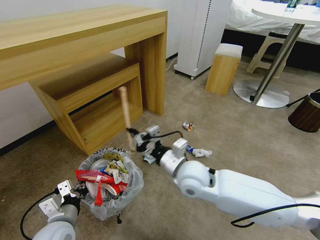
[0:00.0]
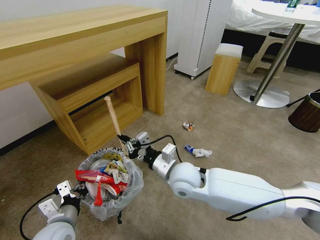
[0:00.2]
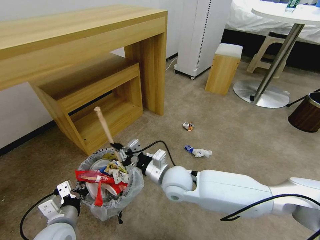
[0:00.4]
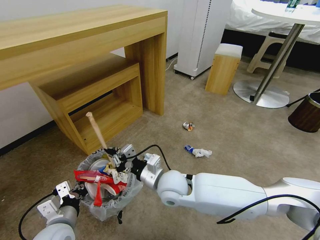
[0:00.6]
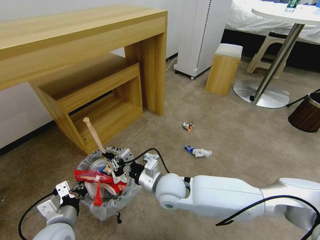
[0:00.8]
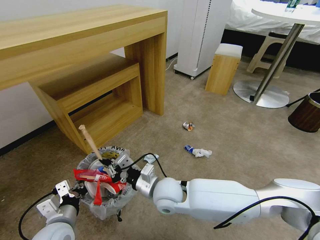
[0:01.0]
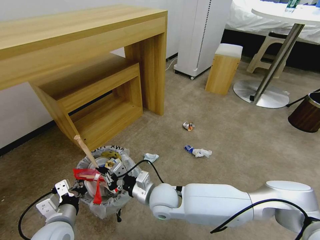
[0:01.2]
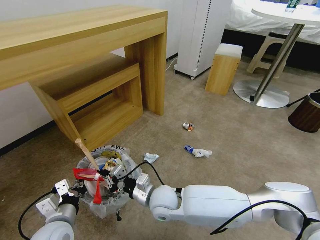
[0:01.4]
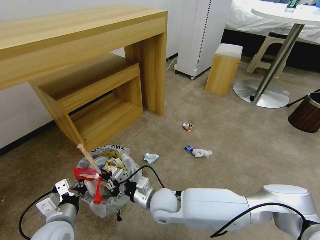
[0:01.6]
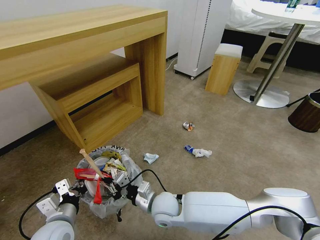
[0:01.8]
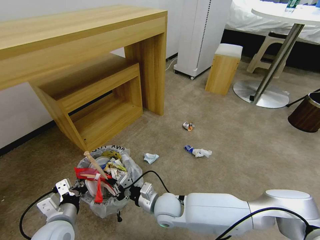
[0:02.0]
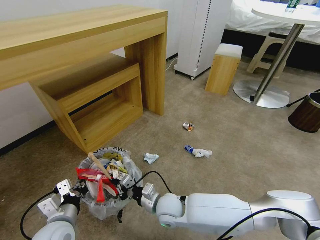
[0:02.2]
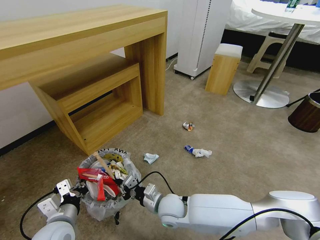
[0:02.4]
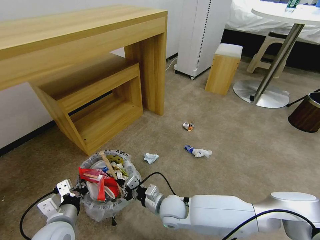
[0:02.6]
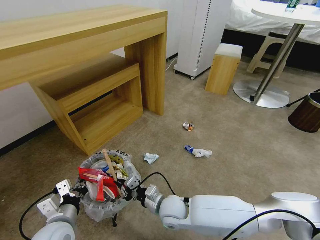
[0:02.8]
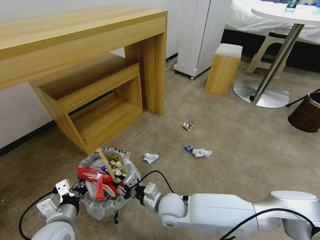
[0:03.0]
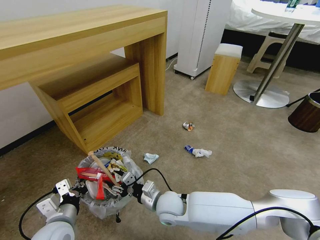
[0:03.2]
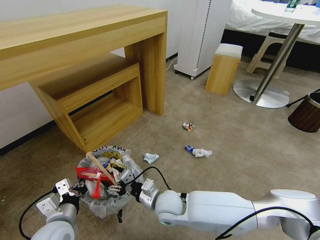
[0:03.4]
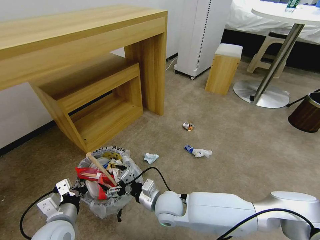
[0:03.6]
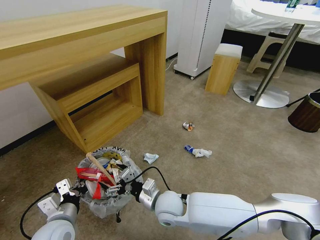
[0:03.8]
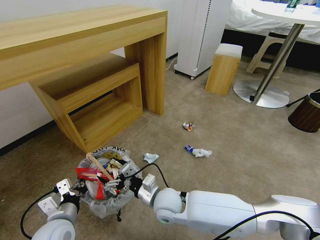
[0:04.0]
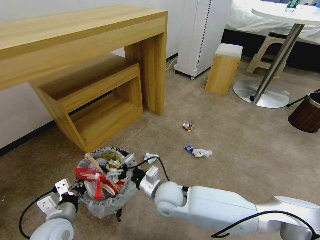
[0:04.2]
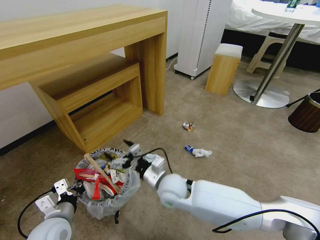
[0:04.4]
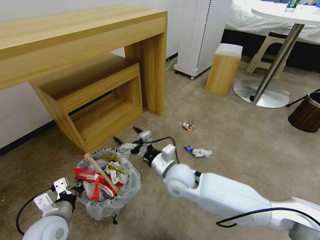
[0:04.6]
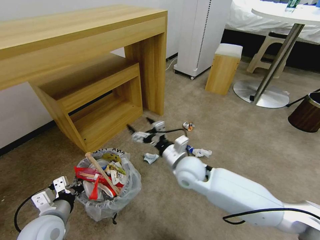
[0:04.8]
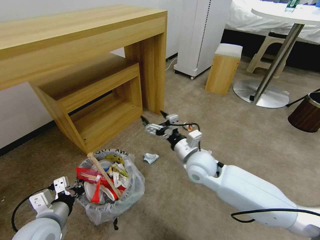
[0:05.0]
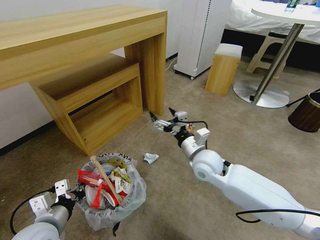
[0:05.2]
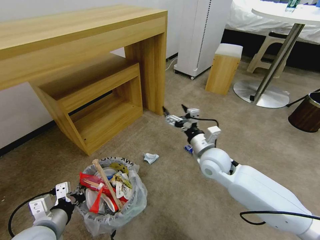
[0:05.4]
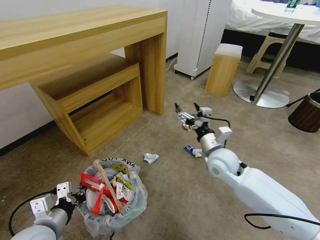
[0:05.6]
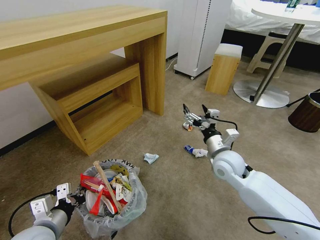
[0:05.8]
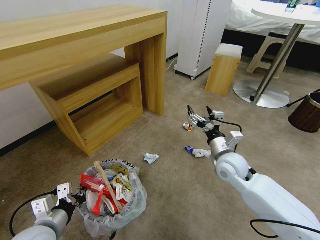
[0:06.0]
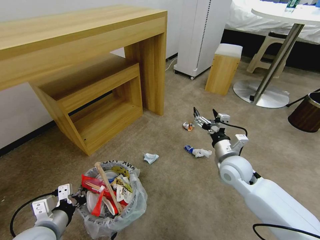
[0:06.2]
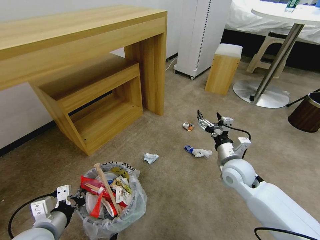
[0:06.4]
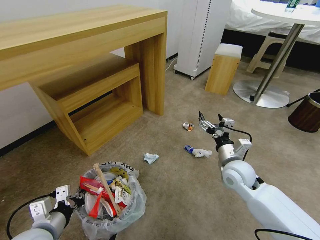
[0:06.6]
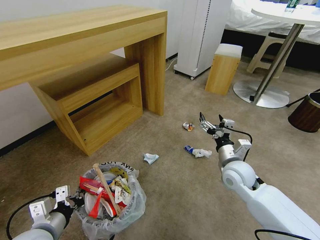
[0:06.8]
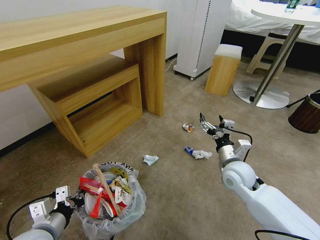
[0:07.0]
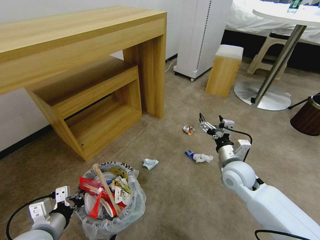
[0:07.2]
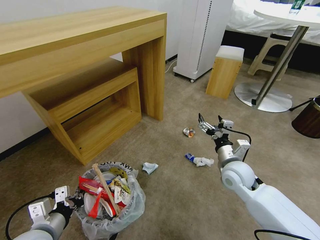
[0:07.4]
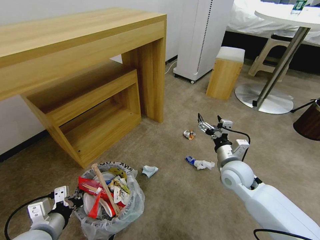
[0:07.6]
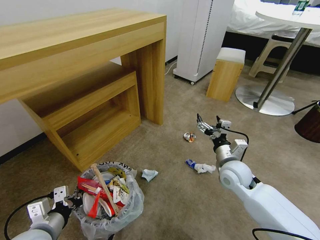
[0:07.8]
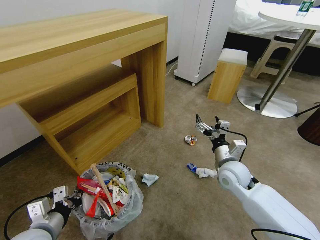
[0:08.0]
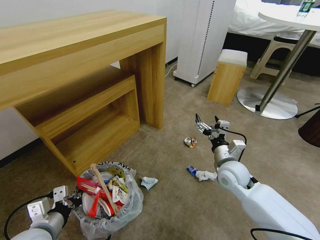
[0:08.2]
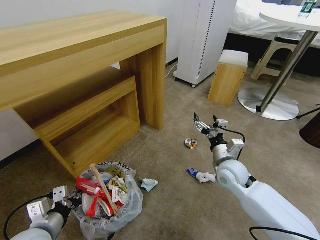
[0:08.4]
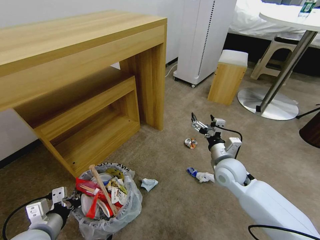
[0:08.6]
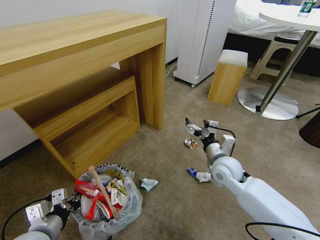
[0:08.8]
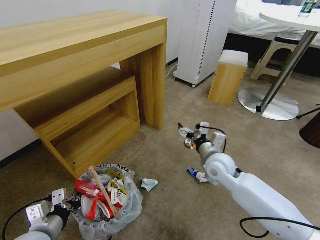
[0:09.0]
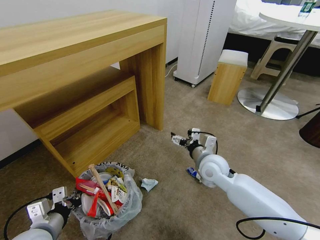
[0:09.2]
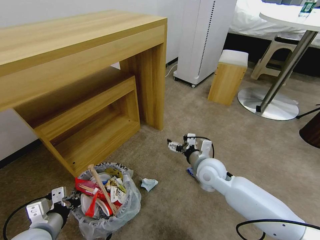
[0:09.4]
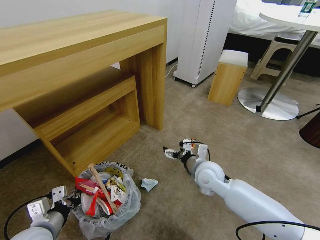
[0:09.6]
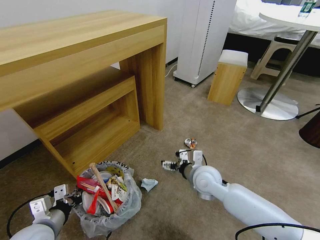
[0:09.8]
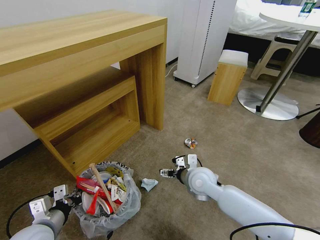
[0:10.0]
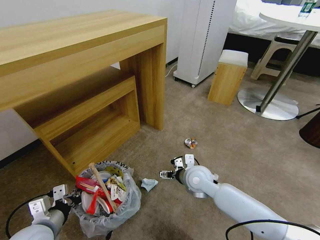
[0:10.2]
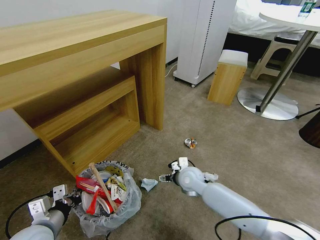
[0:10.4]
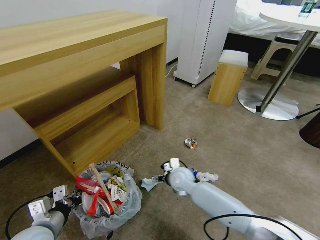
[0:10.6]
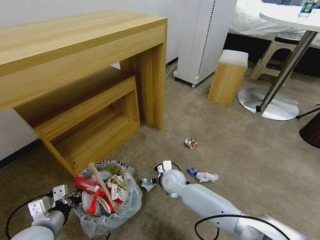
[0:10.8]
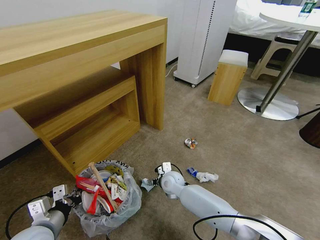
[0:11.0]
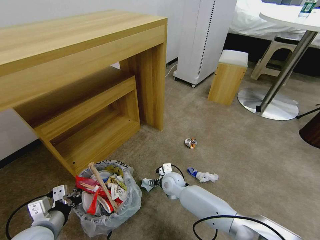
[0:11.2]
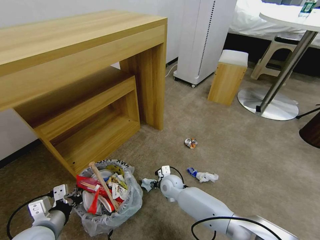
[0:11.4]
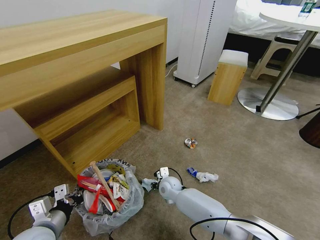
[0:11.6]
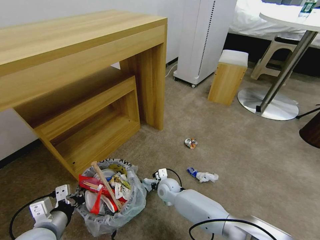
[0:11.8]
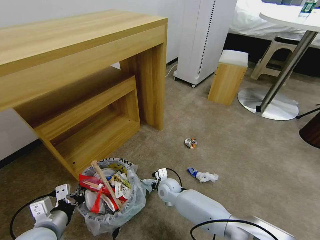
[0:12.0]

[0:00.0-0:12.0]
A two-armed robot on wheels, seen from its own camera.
Task of the whole recording: Pick up the trash bin and place the garbage on the floor into it.
0:00.0 to 0:01.6: The right gripper goes some 15 cm downward and to the left.
0:01.6 to 0:03.0: The grippers make only small movements.
0:03.0 to 0:04.4: The right gripper goes approximately 5 cm upward, and opens its fingers.
0:04.4 to 0:06.0: The right gripper heads to the right, covering about 20 cm.
0:07.6 to 0:09.0: The right gripper changes place by approximately 5 cm.
0:09.0 to 0:10.4: The right gripper heads downward and to the left, covering approximately 10 cm.
0:10.4 to 0:12.0: The right gripper moves downward and to the left, some 15 cm, and closes.

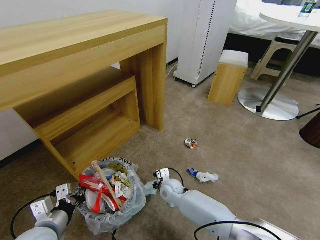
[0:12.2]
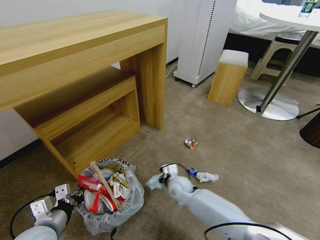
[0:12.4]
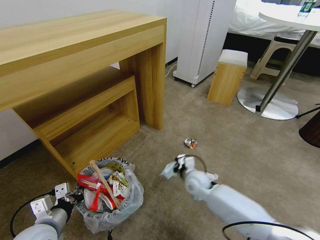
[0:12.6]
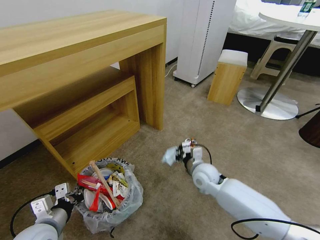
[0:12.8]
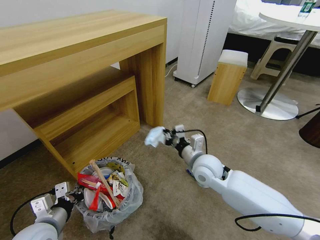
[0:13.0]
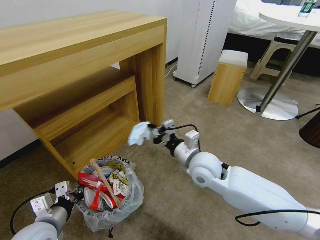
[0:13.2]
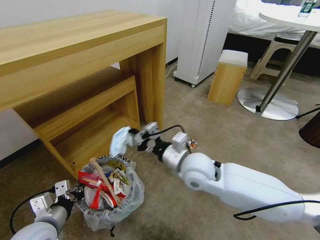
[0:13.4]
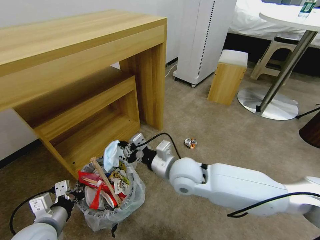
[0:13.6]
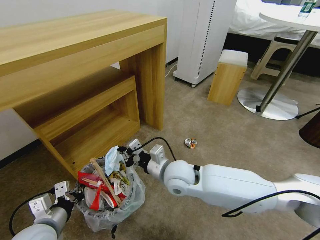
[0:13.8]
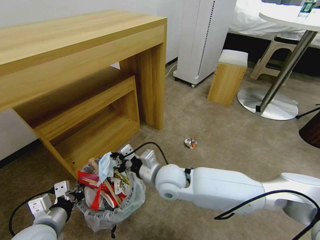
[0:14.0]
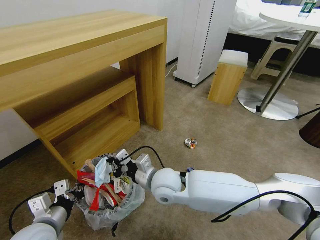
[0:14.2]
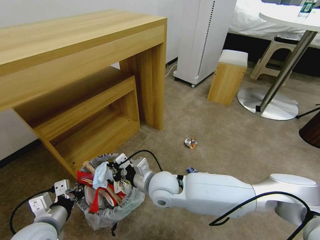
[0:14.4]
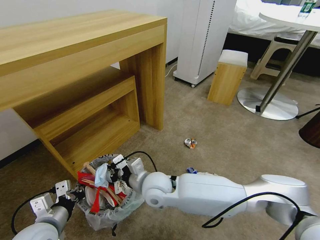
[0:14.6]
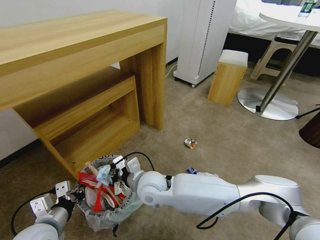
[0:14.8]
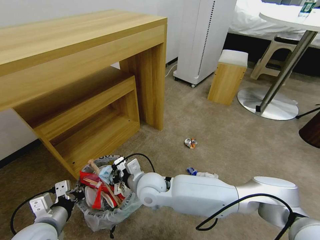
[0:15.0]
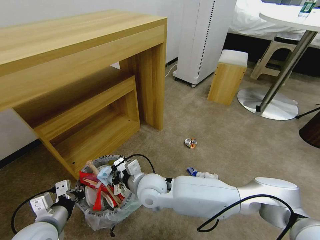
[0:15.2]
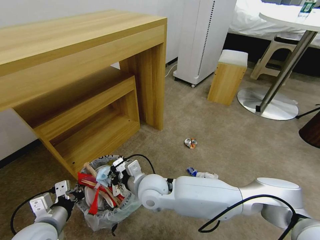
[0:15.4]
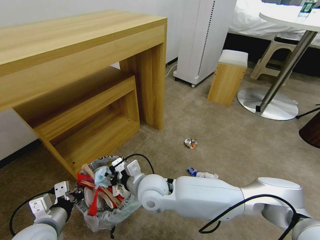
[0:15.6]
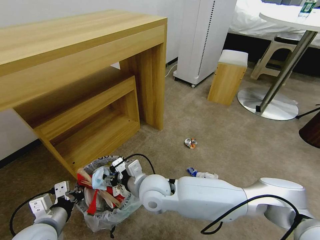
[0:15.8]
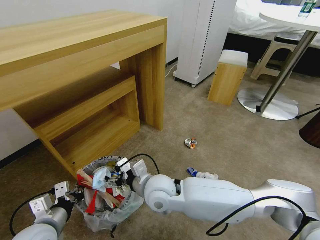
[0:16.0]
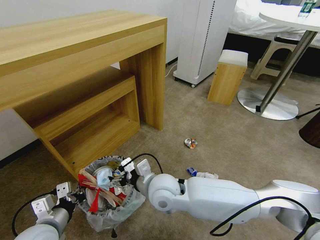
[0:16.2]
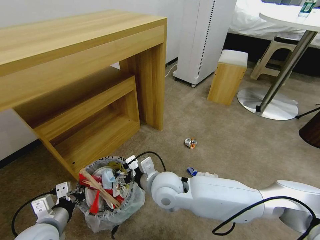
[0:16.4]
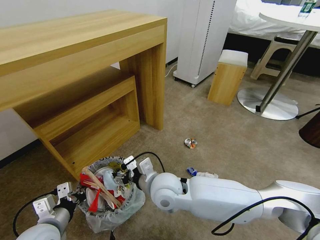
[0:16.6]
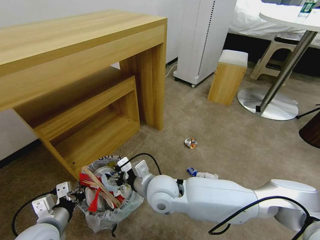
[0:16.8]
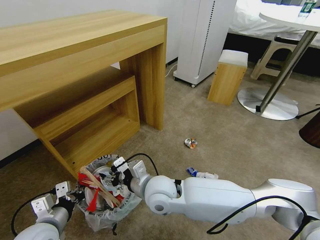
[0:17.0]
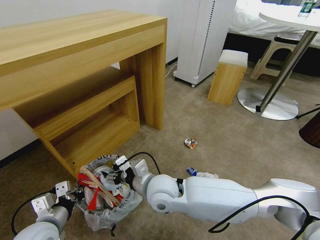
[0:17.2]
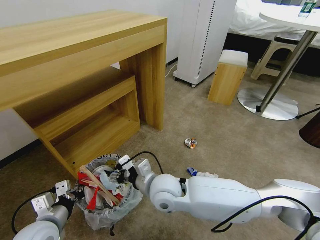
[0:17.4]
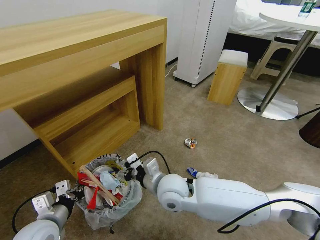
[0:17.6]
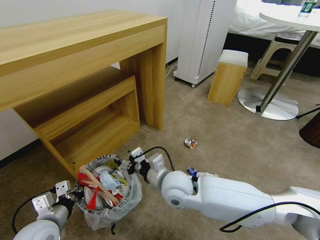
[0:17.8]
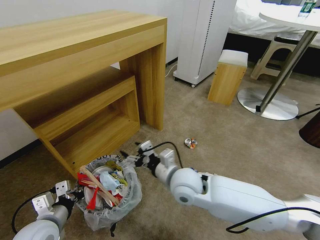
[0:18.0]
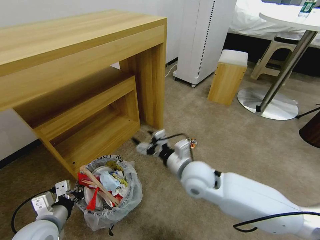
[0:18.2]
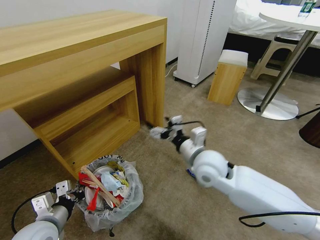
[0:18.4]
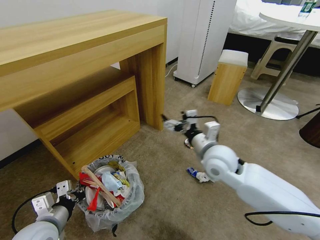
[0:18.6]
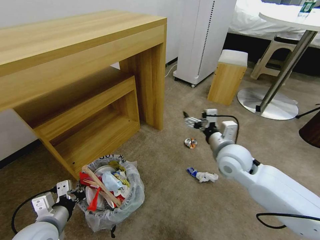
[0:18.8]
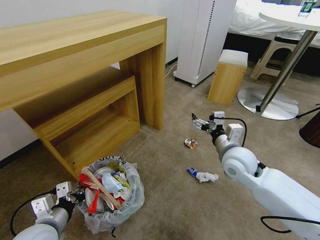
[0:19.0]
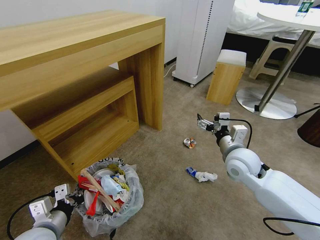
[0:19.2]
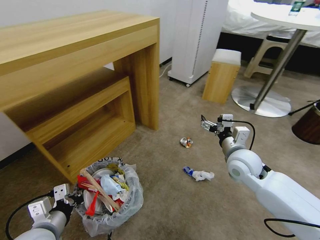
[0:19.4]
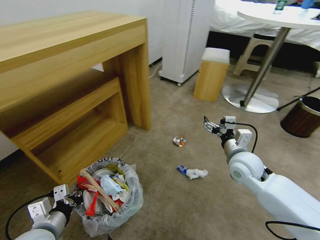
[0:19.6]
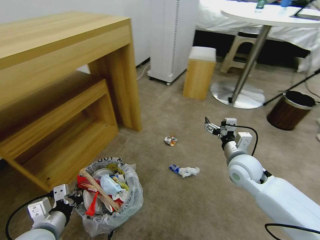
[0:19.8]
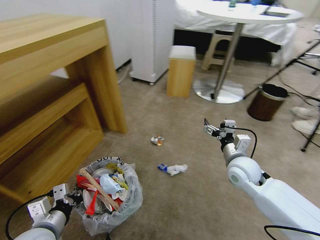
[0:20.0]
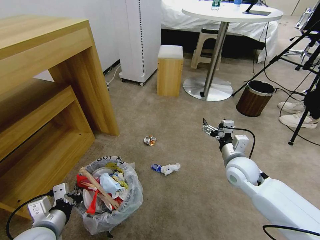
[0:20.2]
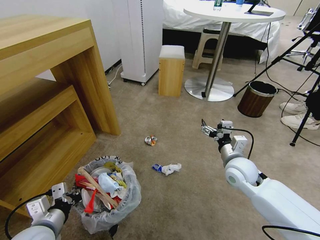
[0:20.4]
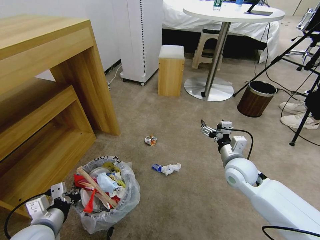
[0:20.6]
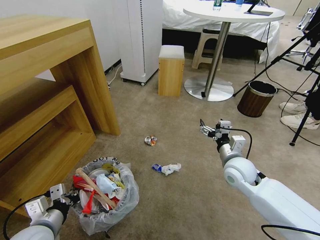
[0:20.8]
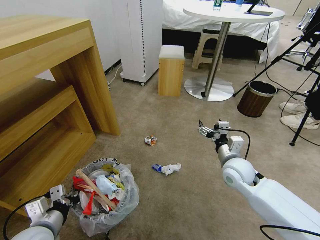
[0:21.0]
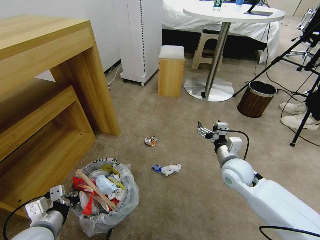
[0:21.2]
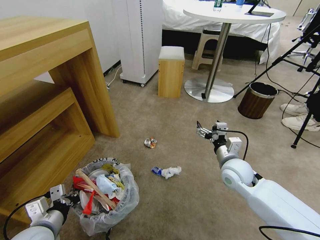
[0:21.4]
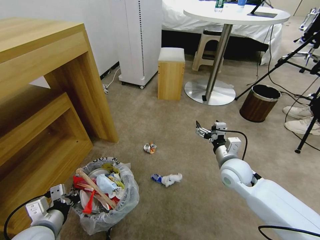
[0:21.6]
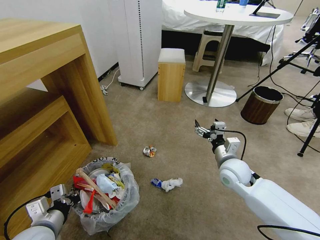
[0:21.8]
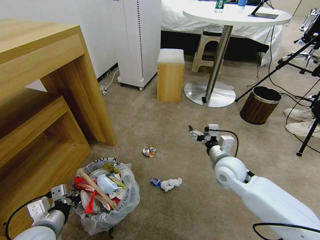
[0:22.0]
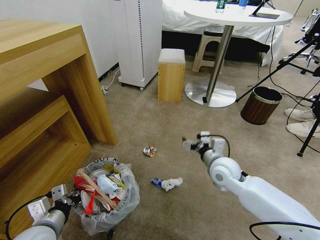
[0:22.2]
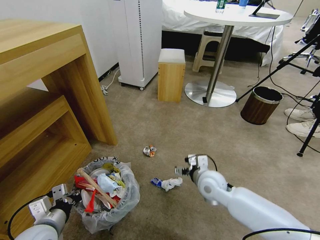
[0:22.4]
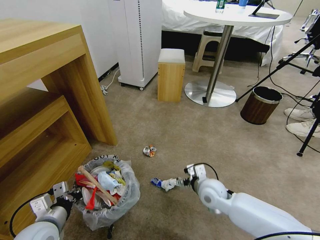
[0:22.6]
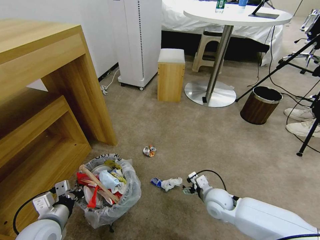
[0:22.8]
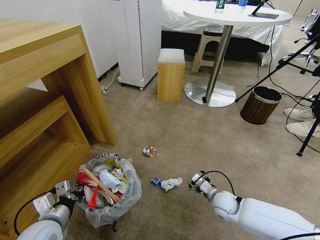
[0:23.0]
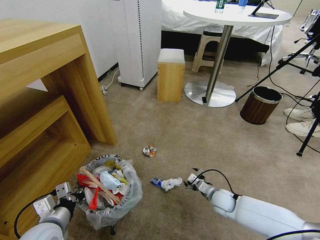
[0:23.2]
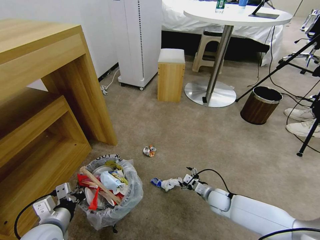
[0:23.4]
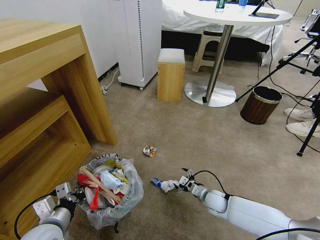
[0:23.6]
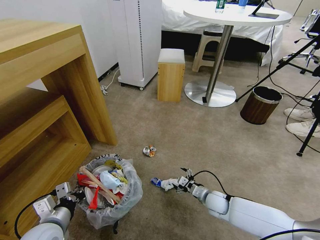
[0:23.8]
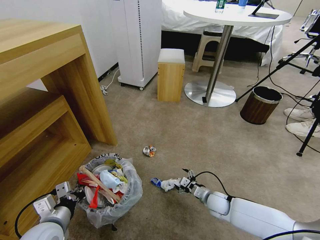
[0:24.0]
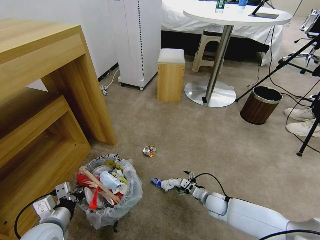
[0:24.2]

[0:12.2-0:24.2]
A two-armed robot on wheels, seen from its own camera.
Task of the whole recording: Pick up the trash bin and place the garbage on the floor into it.
0:12.2 to 0:13.8: The right gripper goes about 20 cm upward.
0:13.8 to 0:15.2: The right gripper shifts about 10 cm to the left.
0:15.2 to 0:16.6: The right gripper shifts by about 5 cm, and opens.
0:16.6 to 0:18.2: The right gripper shifts about 10 cm to the right.
0:18.2 to 0:19.8: The right gripper travels to the right by roughly 15 cm.
0:21.2 to 0:22.6: The right gripper is displaced to the left by some 5 cm.
0:22.6 to 0:24.2: The right gripper shifts roughly 20 cm downward.
